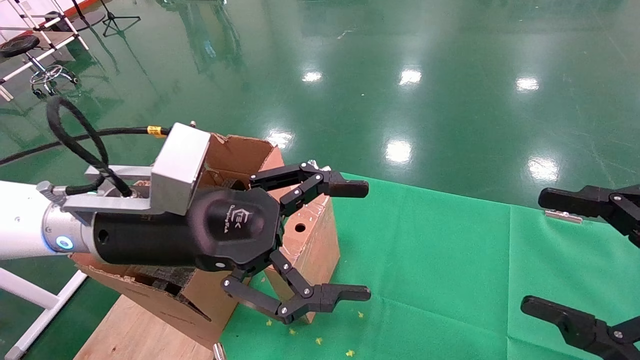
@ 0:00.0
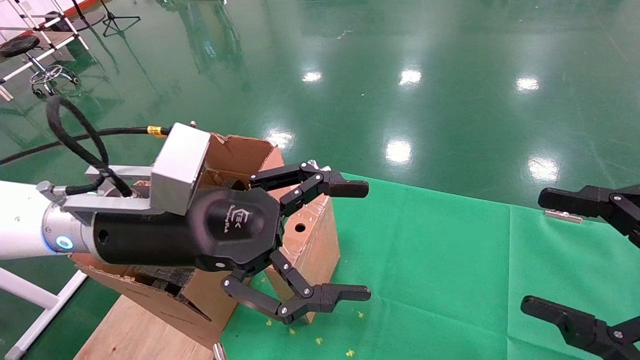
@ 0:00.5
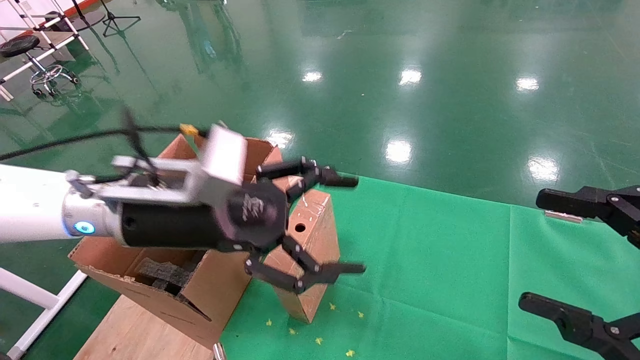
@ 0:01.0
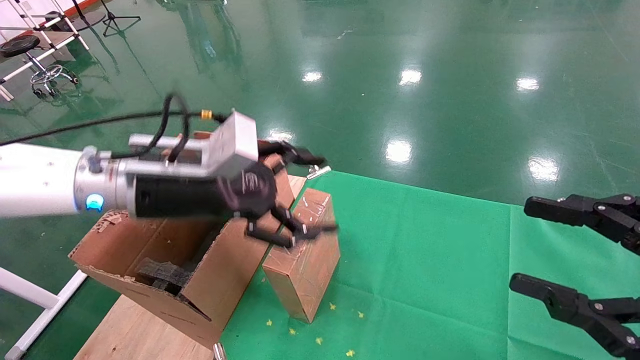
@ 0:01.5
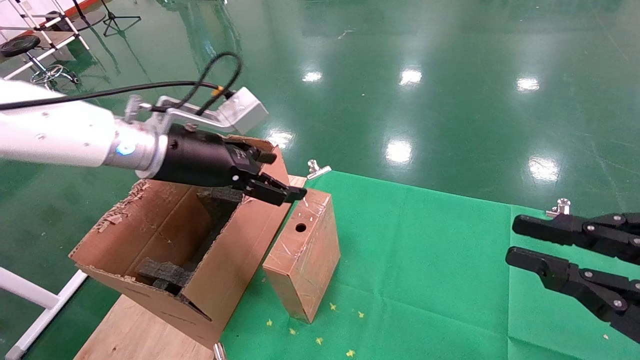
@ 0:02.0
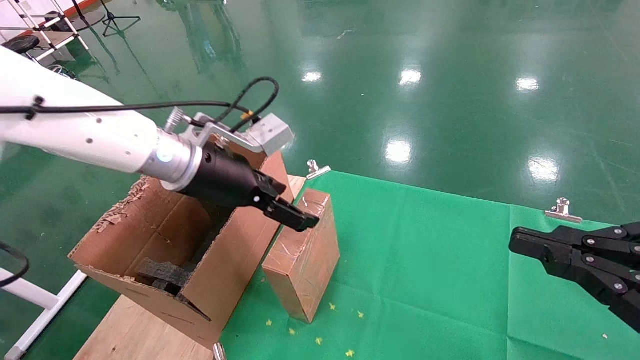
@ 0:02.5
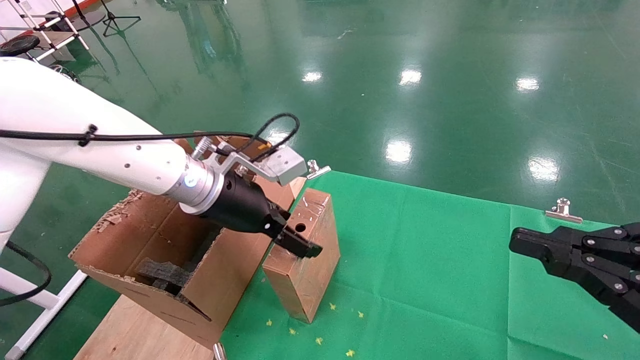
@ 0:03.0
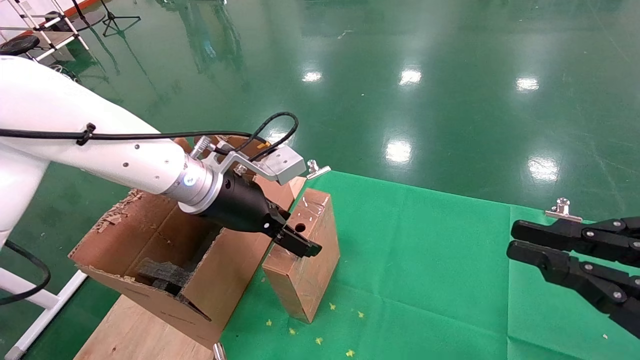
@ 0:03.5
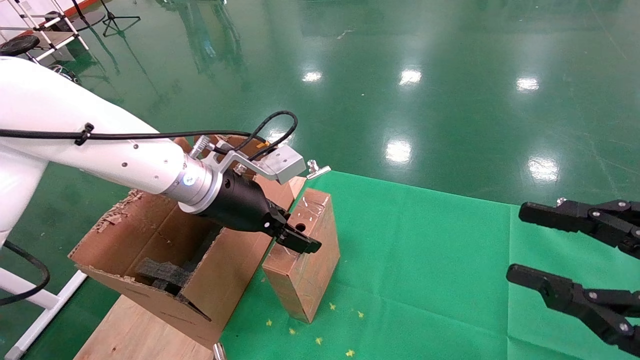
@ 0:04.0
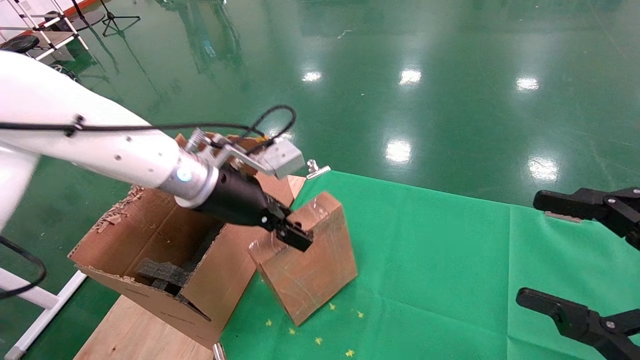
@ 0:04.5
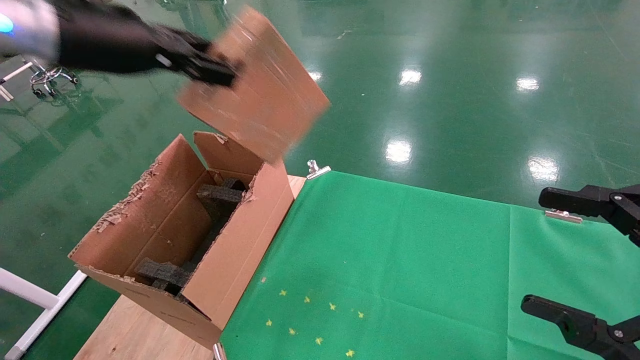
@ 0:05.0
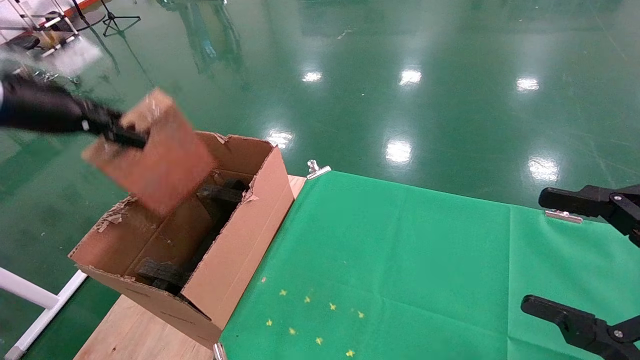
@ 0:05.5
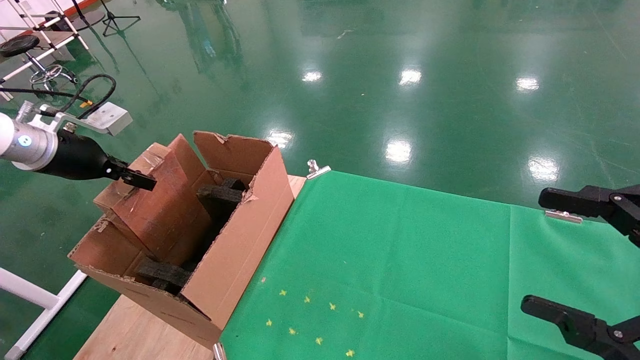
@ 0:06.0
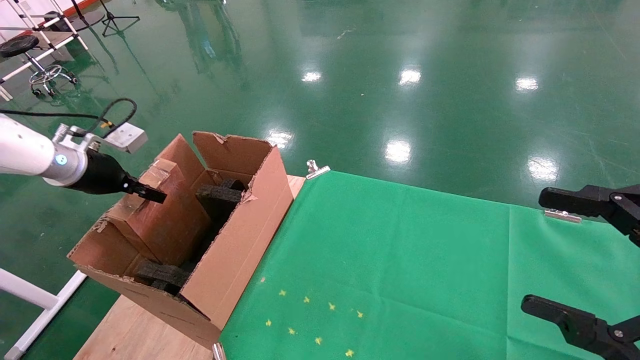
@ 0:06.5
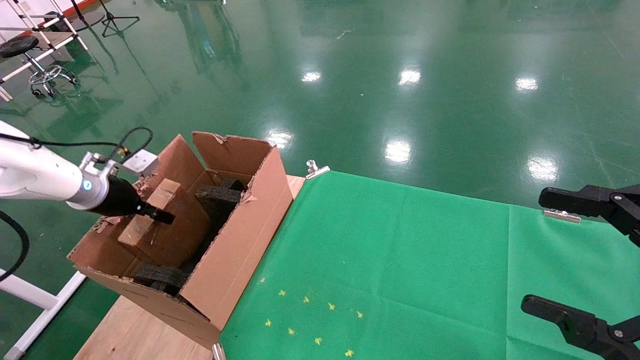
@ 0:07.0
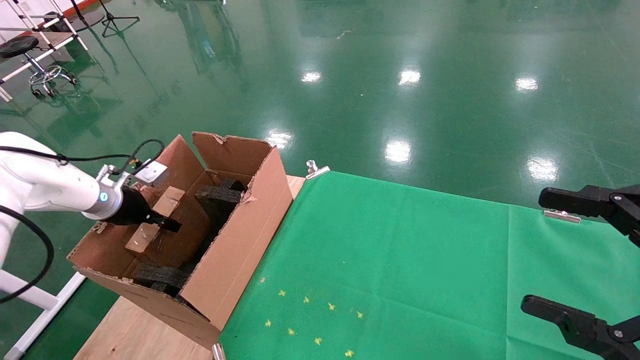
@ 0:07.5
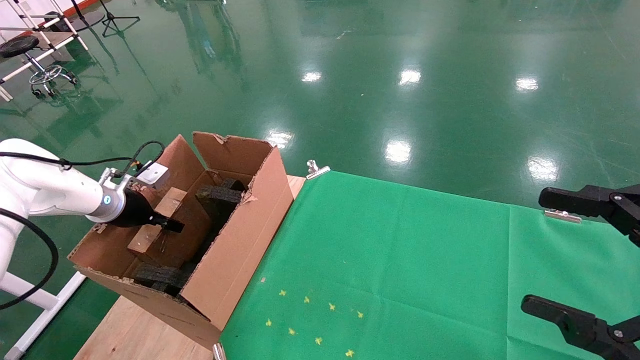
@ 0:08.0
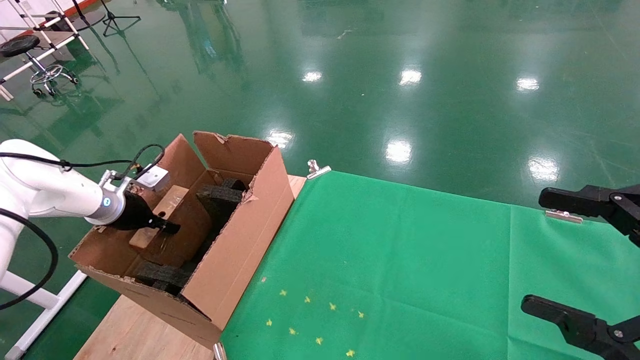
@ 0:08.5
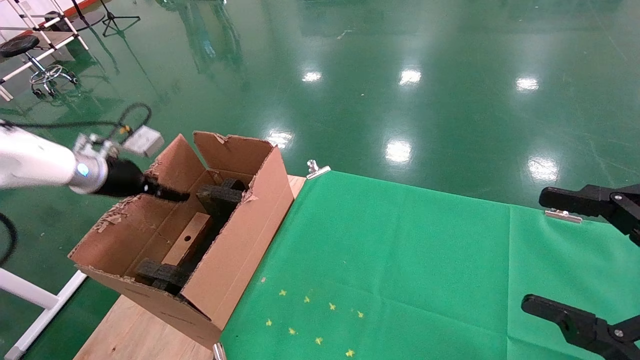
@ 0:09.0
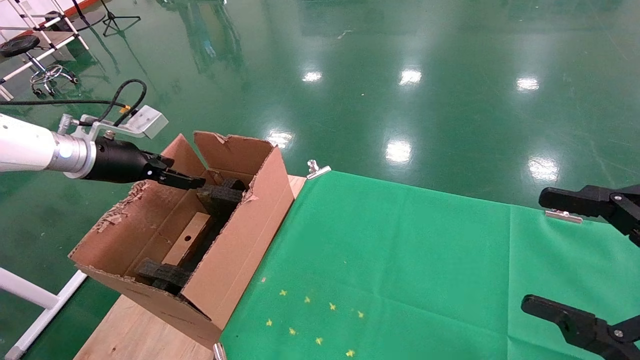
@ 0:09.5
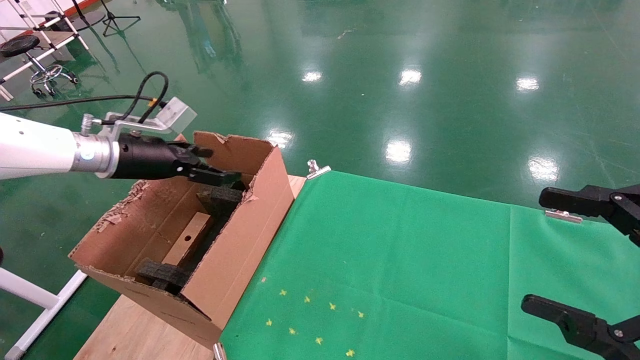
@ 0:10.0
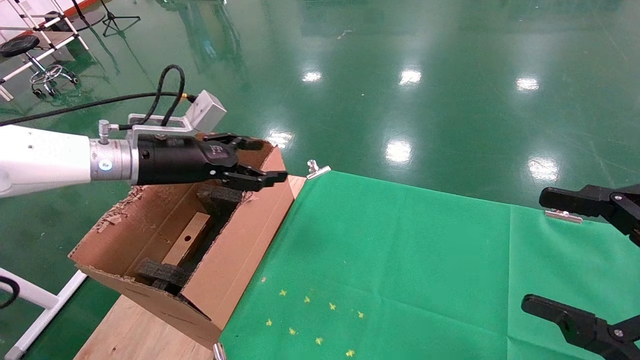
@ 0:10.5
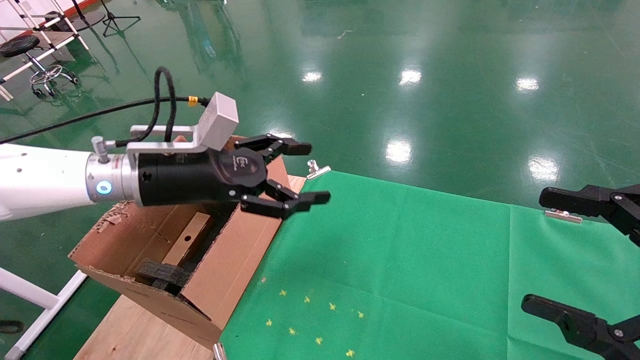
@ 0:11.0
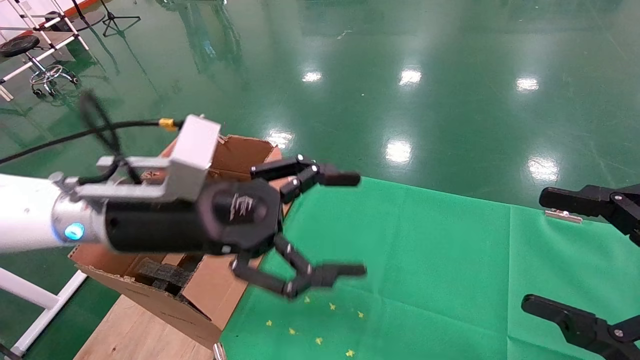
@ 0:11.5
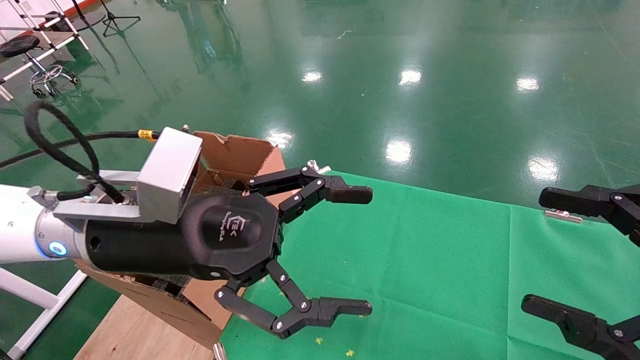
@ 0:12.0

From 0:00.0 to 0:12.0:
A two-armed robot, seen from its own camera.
Task of the whole recording: using a robotic arm to pick up a cardboard box and palace it the carton.
Step, from 0:01.0 to 0:04.0: Pick up the mouse and the power cord paper box.
Step, from 0:04.5 to 0:09.0: Place the mouse and the power cord paper box into the container.
From 0:00.0 to 0:02.0: The left gripper goes some 10 cm forward, while the right gripper closes up.
From 0:02.0 to 0:04.0: The left gripper moves approximately 5 cm.
From 0:04.0 to 0:06.0: The left gripper is displaced to the left by about 30 cm, and closes up. Meanwhile the right gripper opens.
From 0:06.0 to 0:08.0: The left gripper travels downward and forward by approximately 15 cm.
From 0:08.0 to 0:10.0: The left gripper shifts approximately 15 cm upward and to the right, and opens its fingers.
From 0:10.0 to 0:12.0: The left gripper shifts about 25 cm to the right and backward.

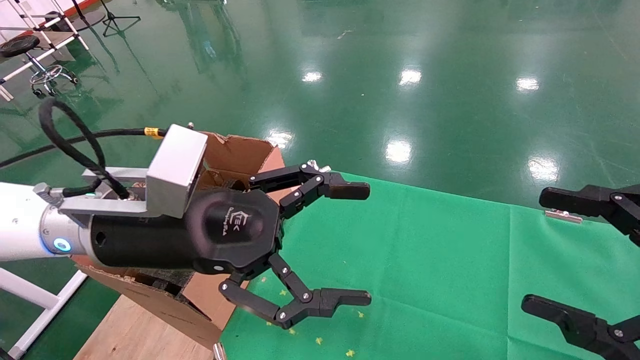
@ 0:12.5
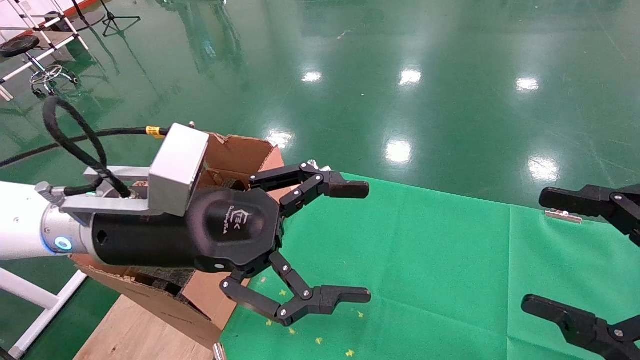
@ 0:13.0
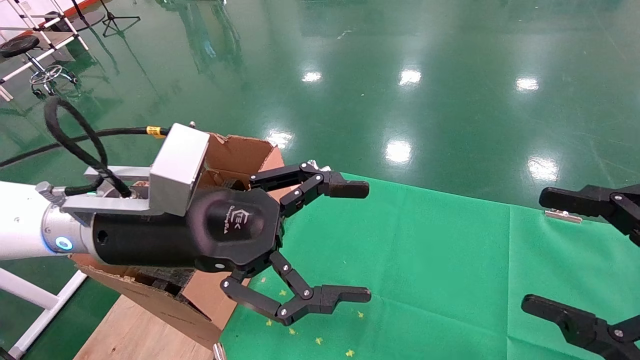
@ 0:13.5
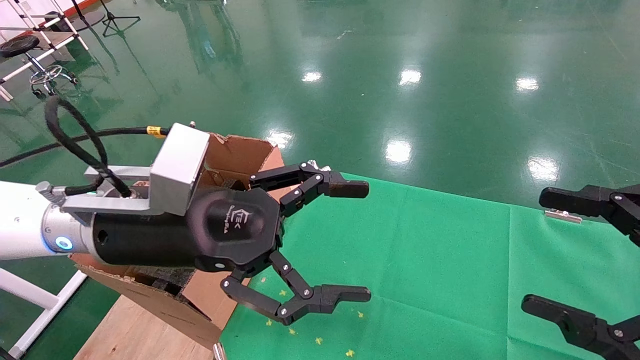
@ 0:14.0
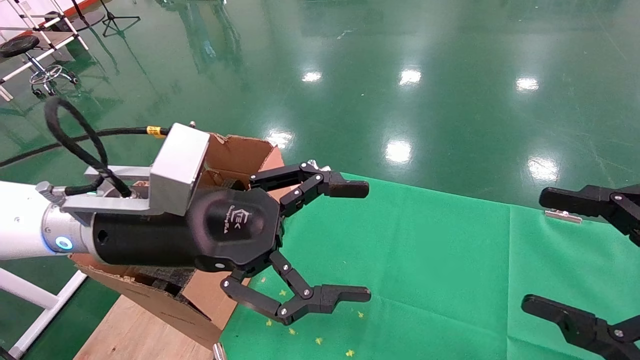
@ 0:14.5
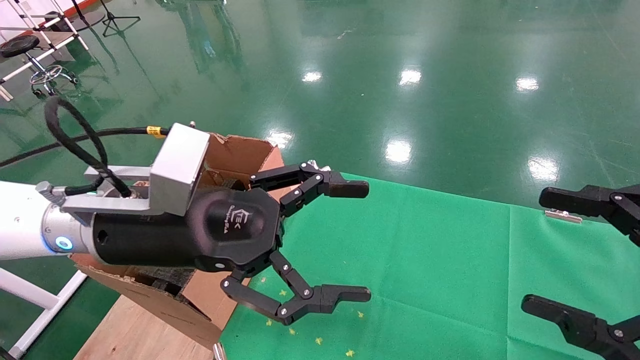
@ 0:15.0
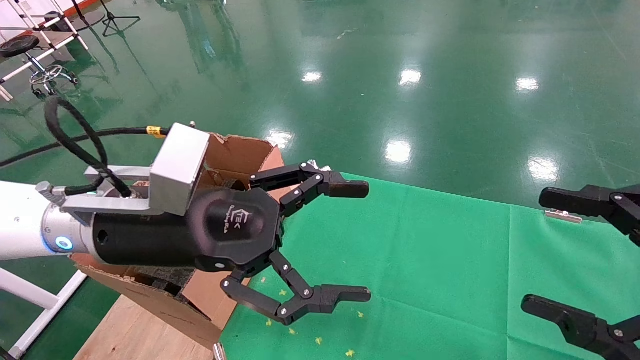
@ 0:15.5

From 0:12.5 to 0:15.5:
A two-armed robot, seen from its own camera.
Task of the whole recording: using a robotic arm to pick up a cardboard box and palace it the carton.
From 0:12.5 to 0:15.5: The two grippers keep their place.
